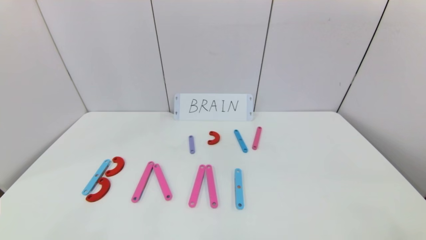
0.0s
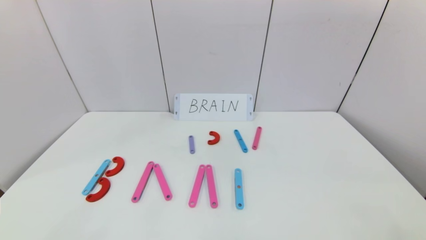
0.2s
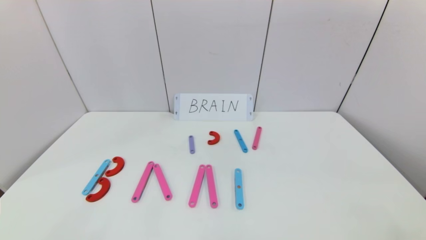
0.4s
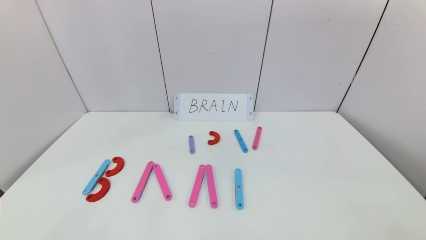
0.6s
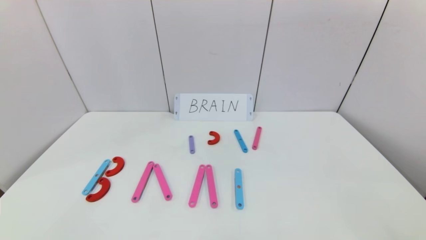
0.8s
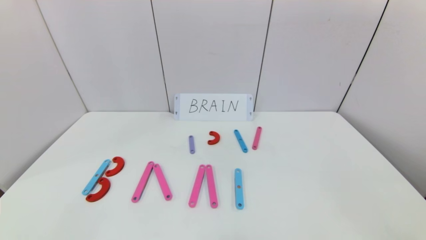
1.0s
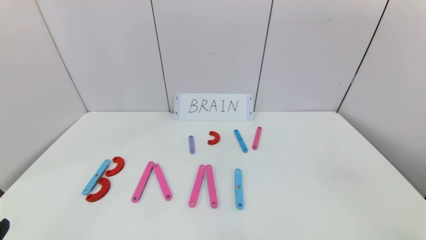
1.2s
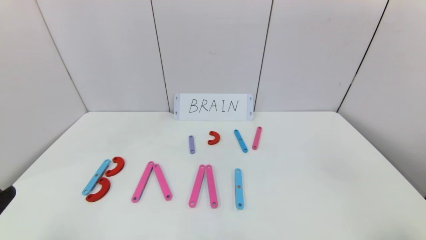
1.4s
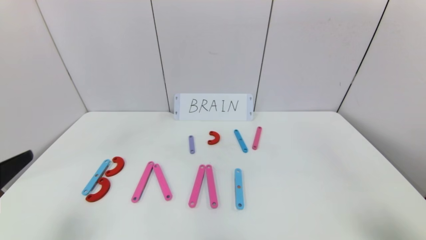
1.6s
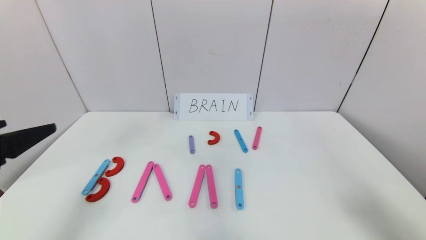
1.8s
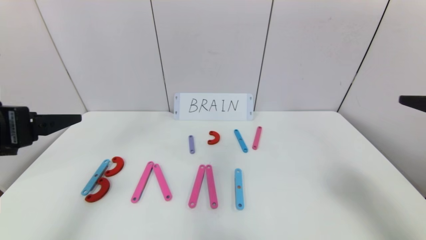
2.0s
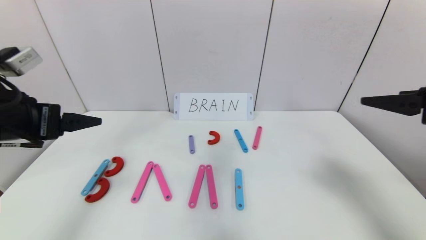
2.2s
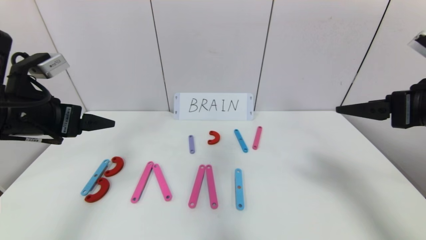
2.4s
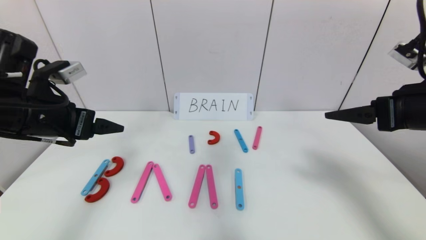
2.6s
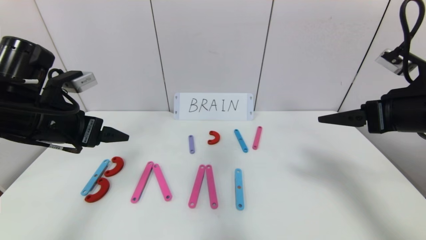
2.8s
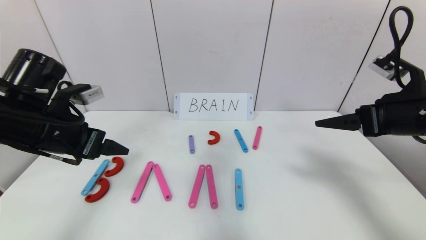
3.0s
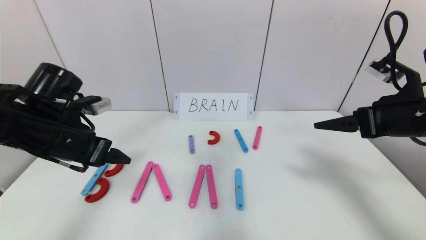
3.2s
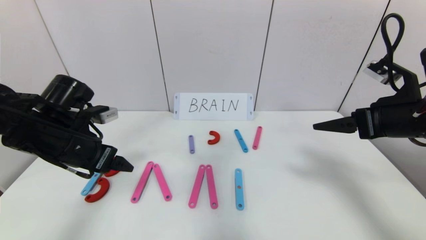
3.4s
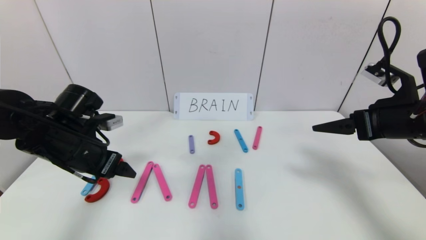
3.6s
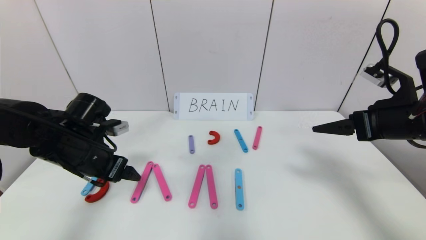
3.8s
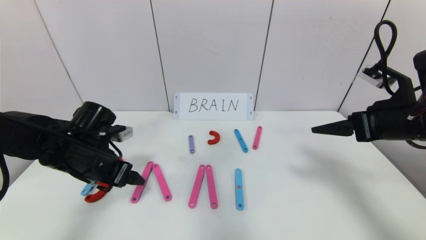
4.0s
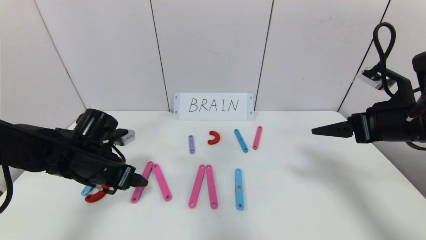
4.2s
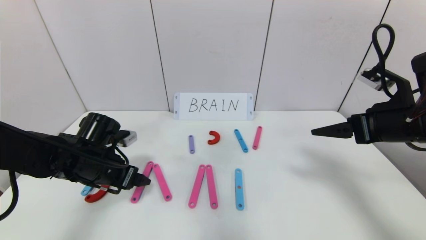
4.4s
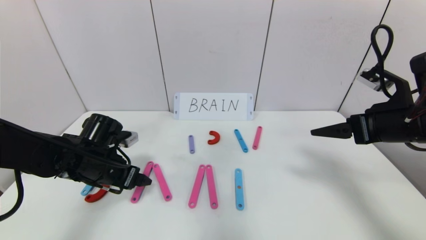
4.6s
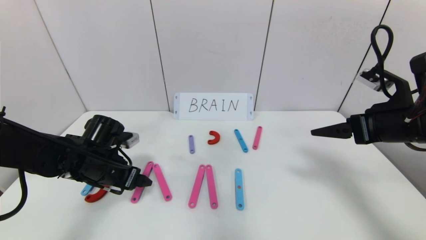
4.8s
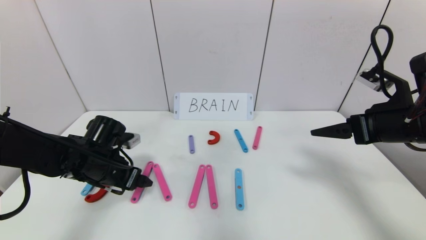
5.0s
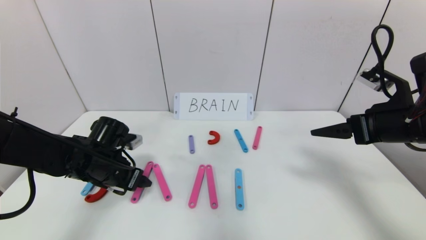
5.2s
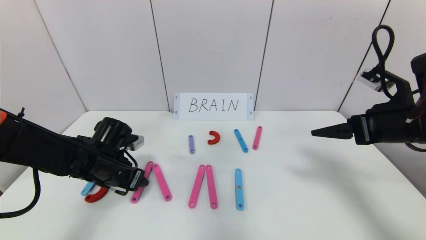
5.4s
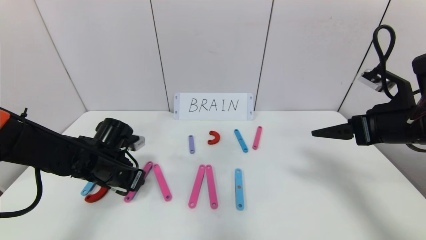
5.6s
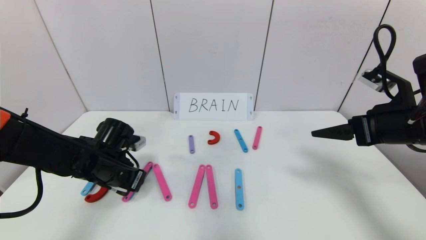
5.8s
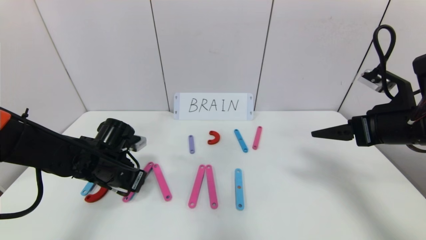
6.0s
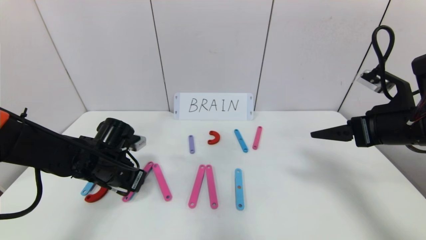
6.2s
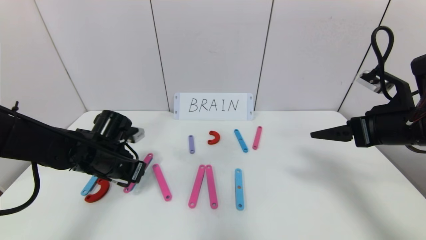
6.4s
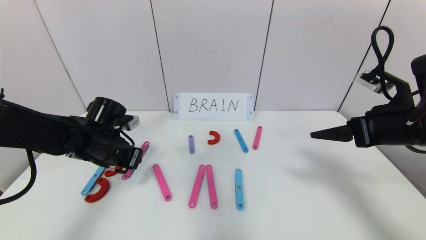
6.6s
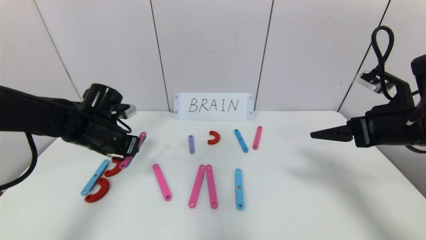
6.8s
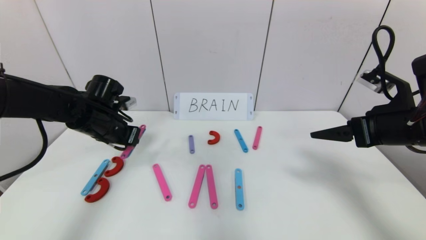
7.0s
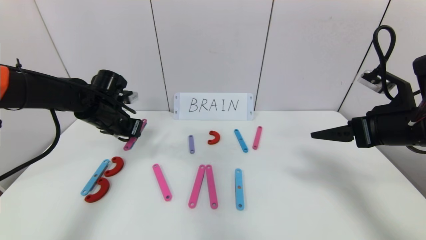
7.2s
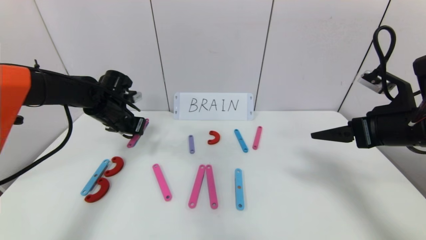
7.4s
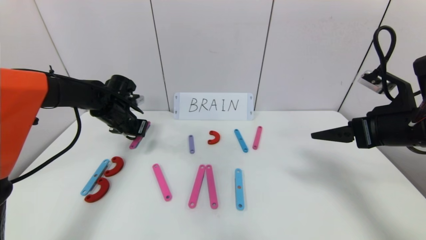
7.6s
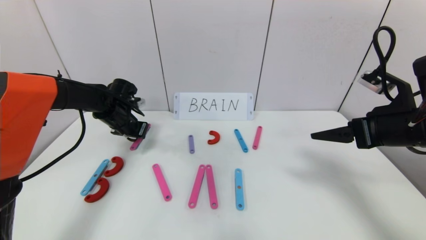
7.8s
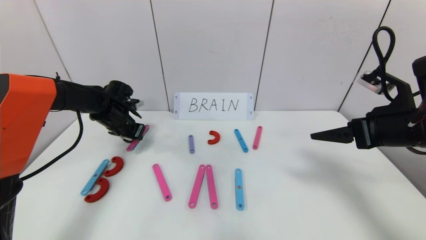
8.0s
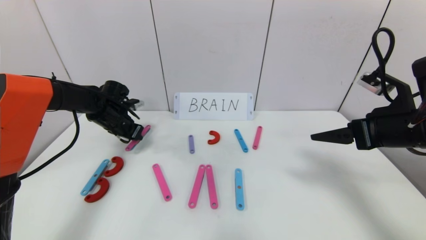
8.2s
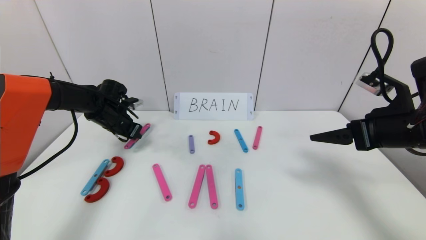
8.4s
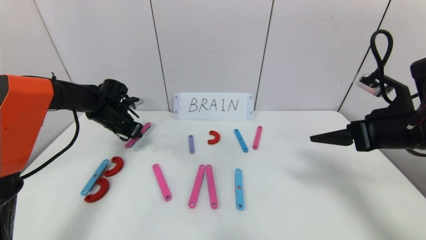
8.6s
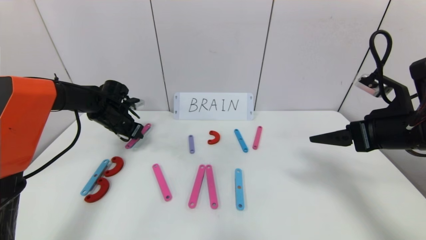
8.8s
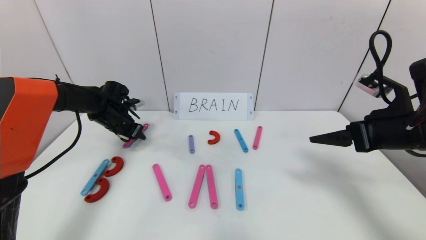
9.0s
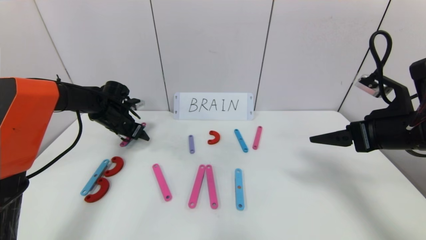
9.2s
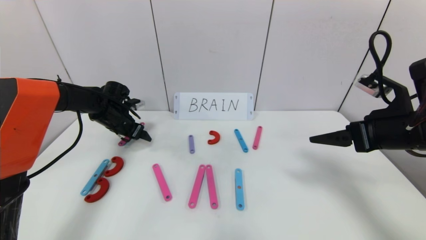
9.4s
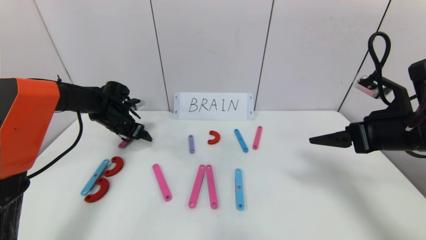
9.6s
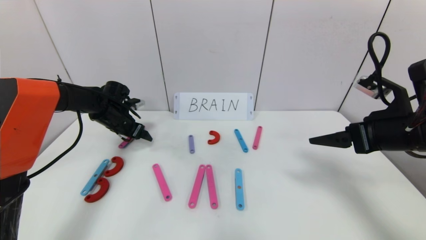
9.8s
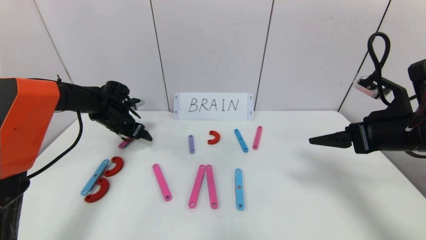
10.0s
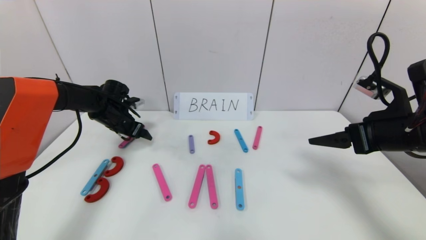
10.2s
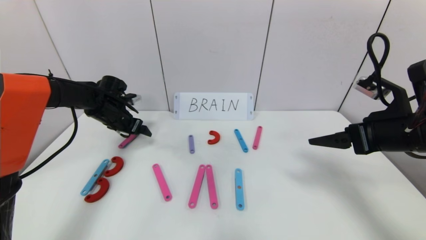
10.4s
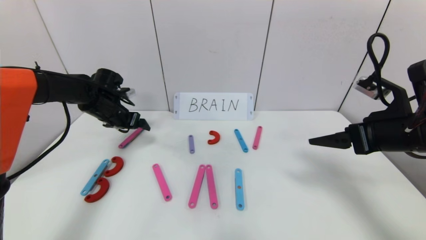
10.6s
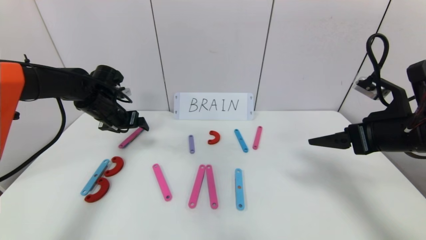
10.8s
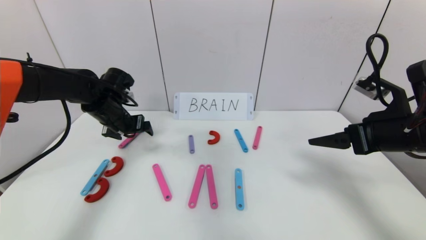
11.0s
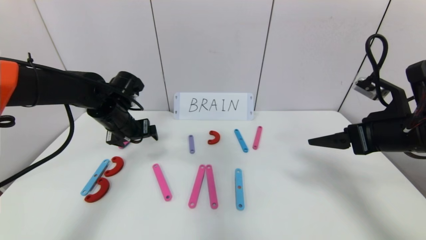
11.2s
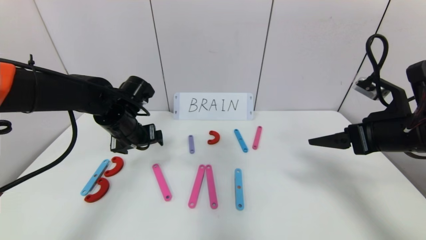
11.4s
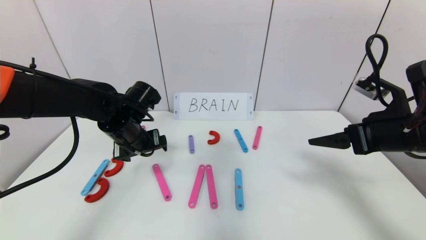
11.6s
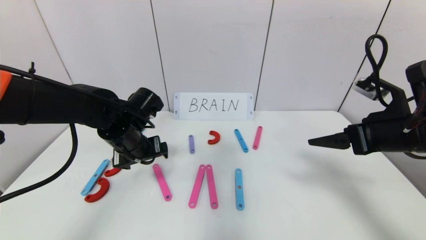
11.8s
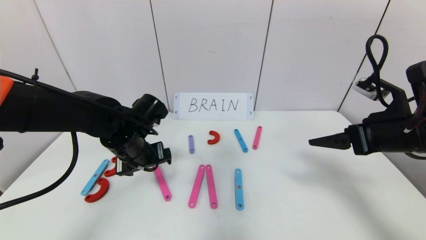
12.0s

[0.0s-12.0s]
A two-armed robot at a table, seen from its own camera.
Task of the whole recording: rearrange the word baai as brain.
0.0s to 1.6s: The left gripper moves upward and forward, roughly 20 cm. The right gripper goes about 20 cm upward.
1.6s to 3.0s: The two grippers go approximately 15 cm forward.
3.0s to 4.4s: The left gripper heads downward, covering roughly 10 cm.
4.4s to 6.0s: The left gripper closes its fingers.
6.0s to 7.6s: The left gripper goes roughly 15 cm forward and upward.
7.6s to 9.0s: The left gripper opens.
9.0s to 10.4s: The left gripper opens up.
10.4s to 12.0s: The left gripper moves backward and to the right, roughly 20 cm.

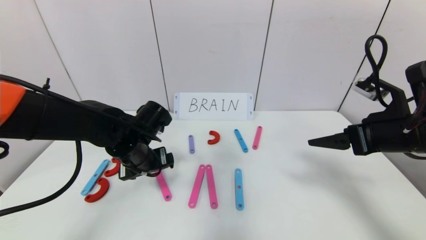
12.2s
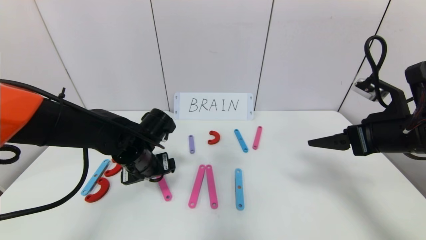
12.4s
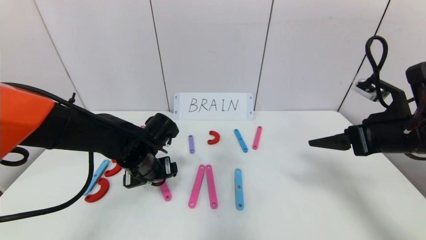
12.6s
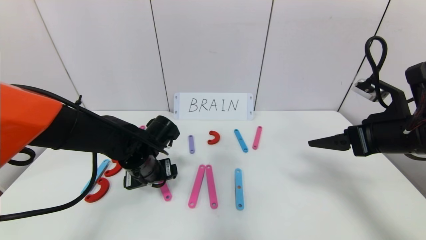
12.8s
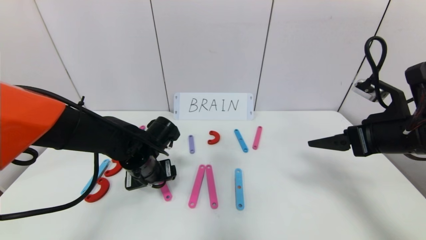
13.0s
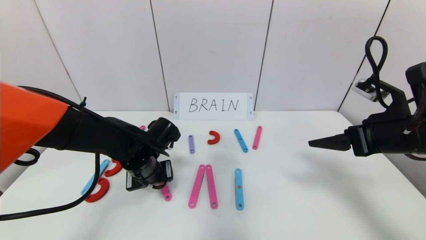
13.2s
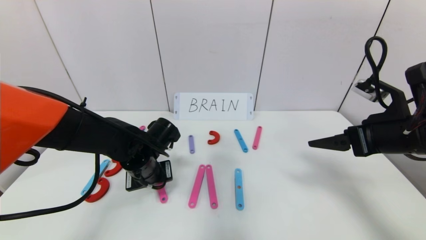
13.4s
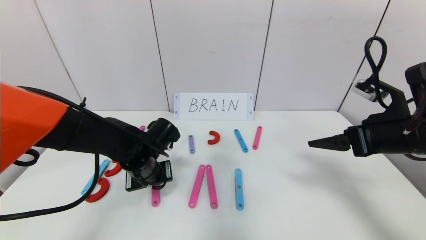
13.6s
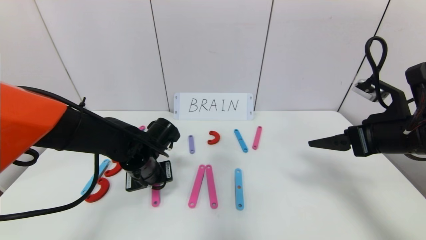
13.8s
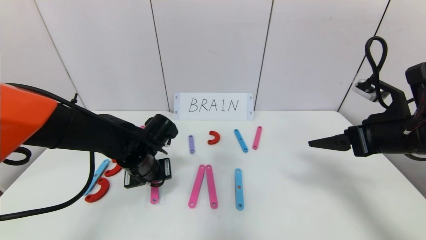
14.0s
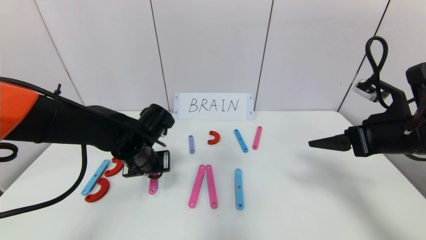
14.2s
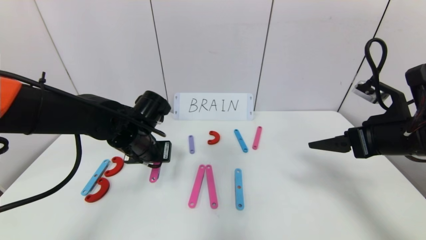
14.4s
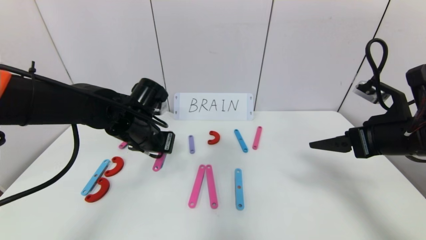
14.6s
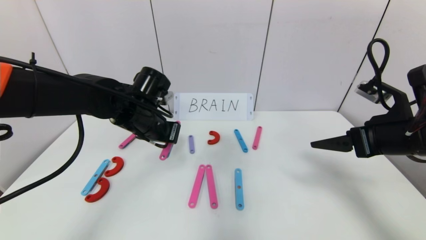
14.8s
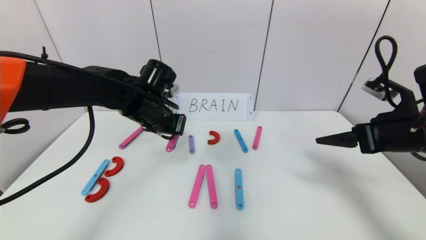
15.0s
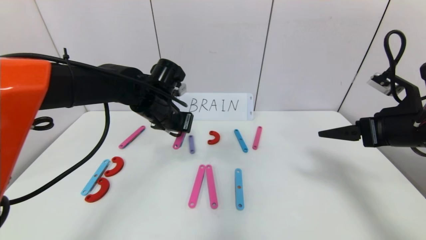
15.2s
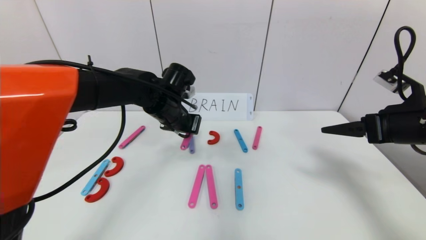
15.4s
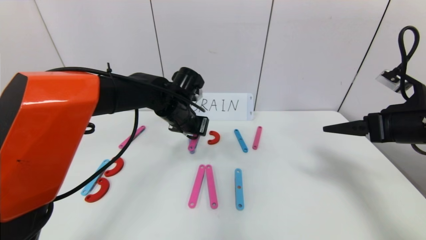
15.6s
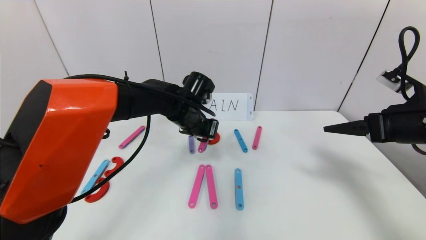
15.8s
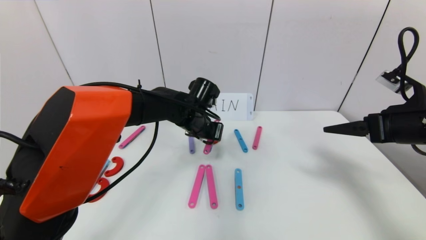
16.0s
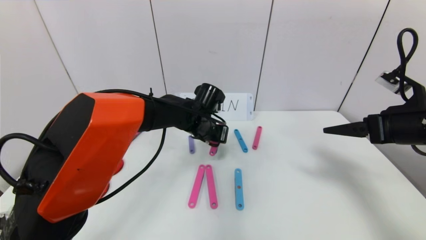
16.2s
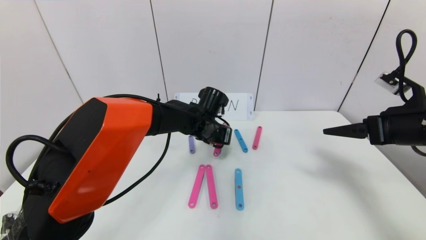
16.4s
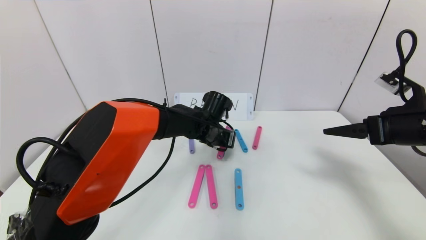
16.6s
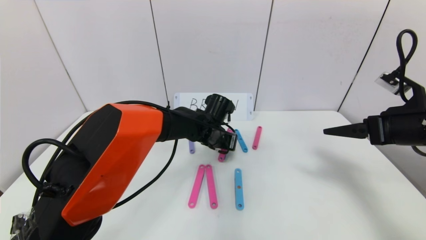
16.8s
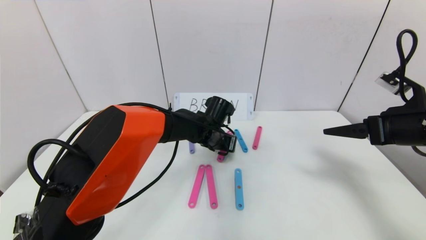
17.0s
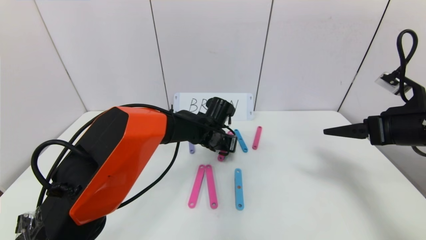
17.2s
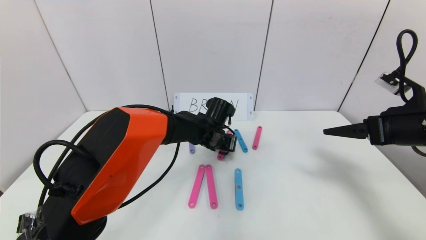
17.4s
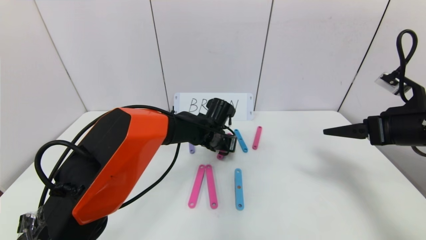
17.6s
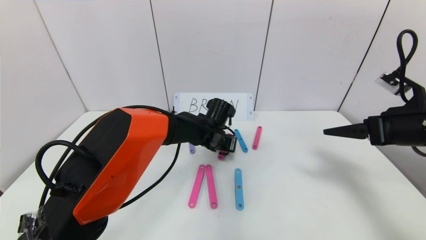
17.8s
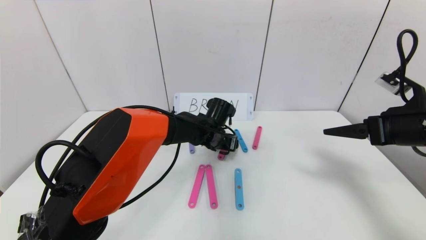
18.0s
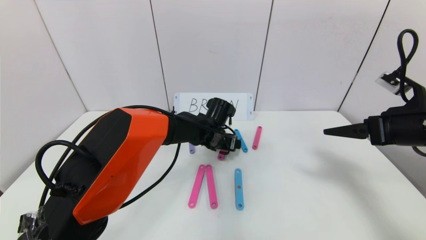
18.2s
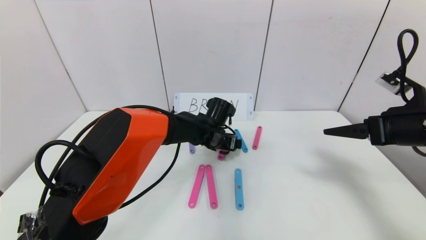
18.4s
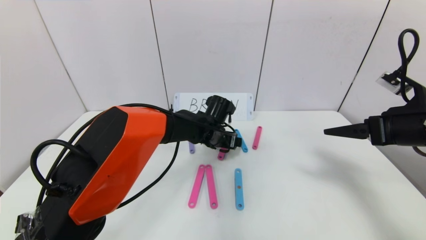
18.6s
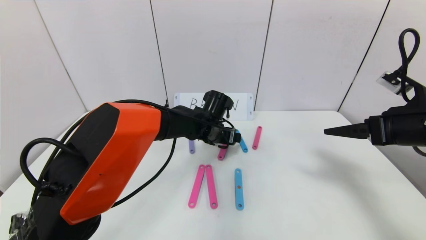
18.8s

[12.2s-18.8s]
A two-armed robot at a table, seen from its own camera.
Task of the whole recording: rearrange the word baai as brain.
Step, 12.2s to 18.2s: Disassemble the second character A.
12.2s to 13.8s: The left gripper closes.
13.8s to 15.4s: The left gripper shifts roughly 10 cm upward and forward.
15.4s to 17.2s: The left gripper moves to the right and downward, approximately 15 cm.
17.2s to 18.8s: The left gripper opens.
